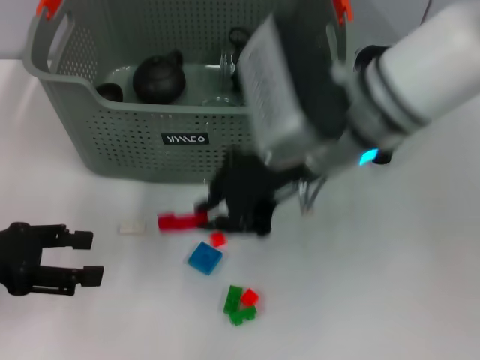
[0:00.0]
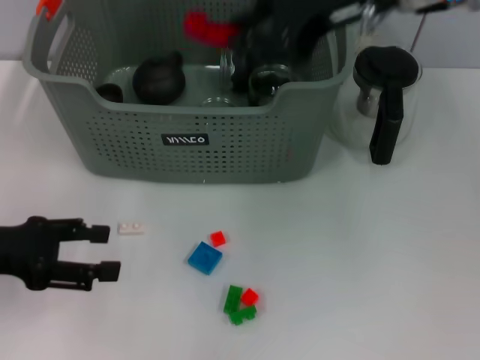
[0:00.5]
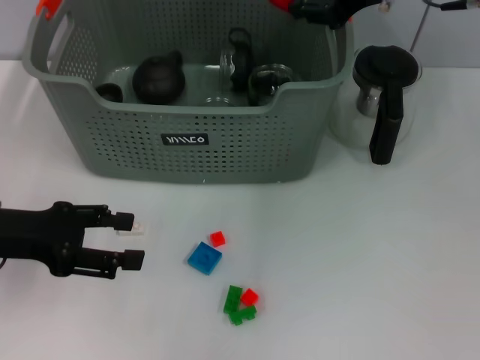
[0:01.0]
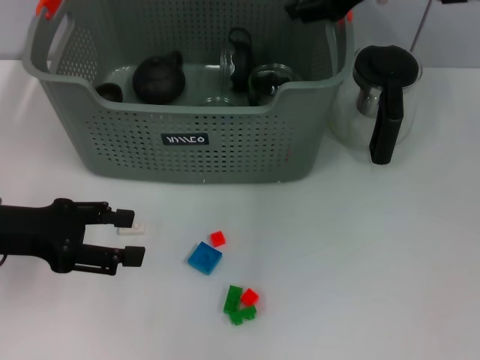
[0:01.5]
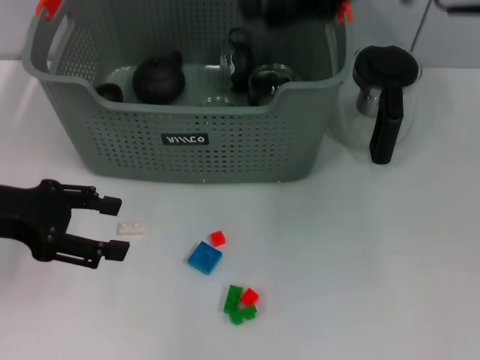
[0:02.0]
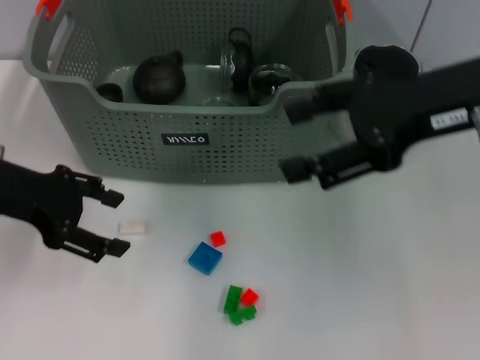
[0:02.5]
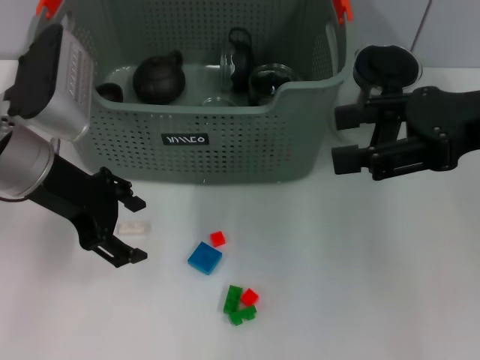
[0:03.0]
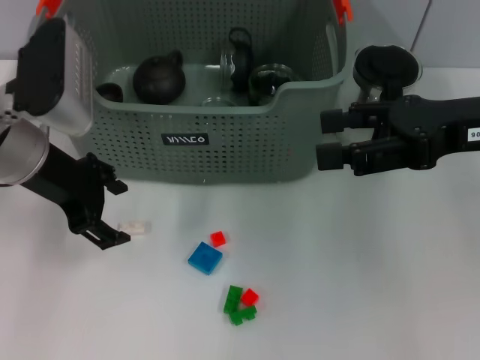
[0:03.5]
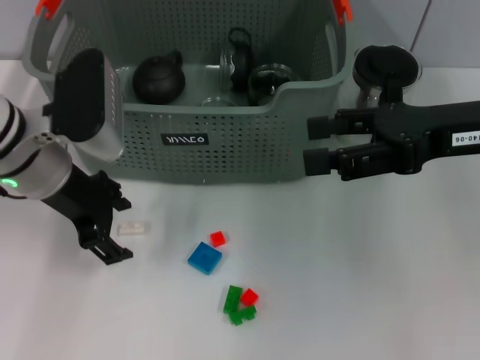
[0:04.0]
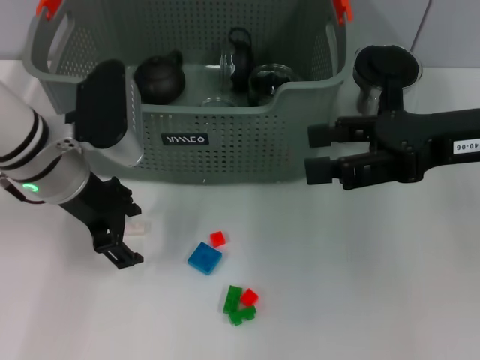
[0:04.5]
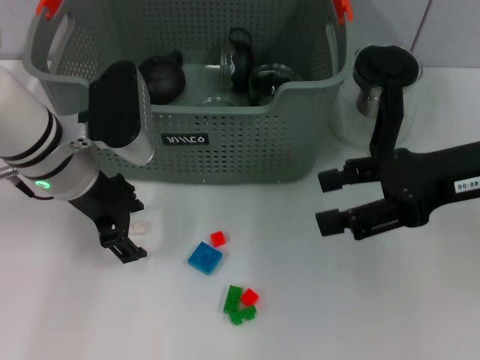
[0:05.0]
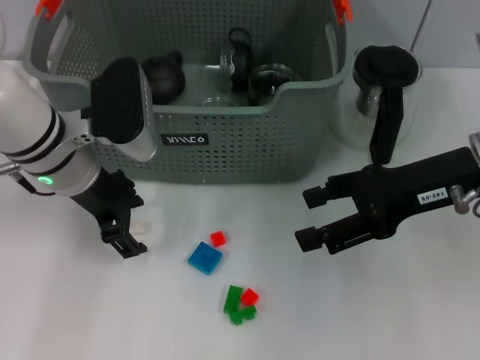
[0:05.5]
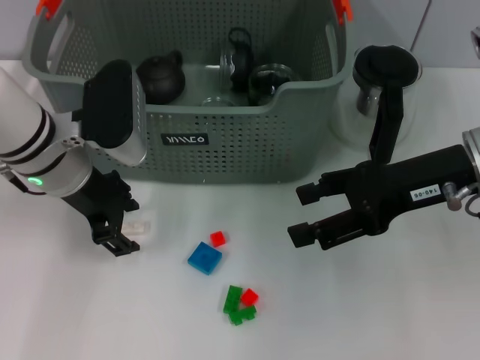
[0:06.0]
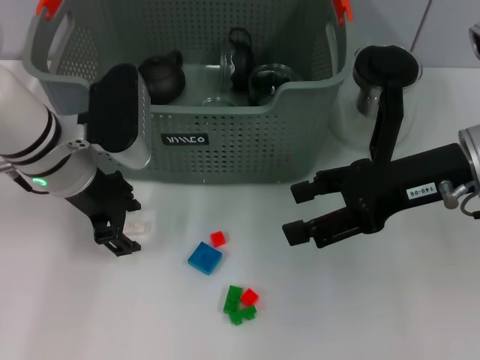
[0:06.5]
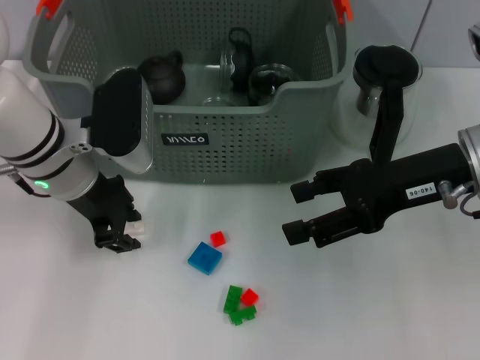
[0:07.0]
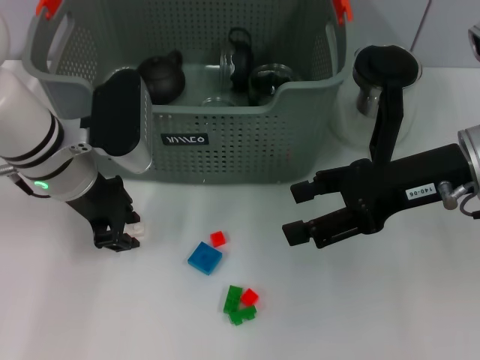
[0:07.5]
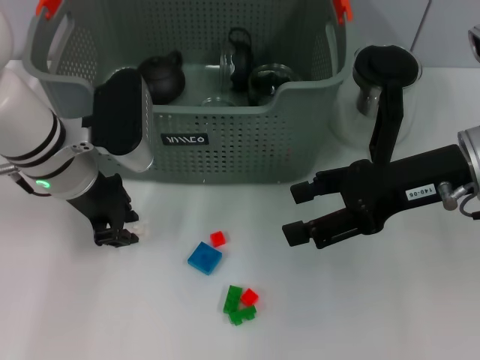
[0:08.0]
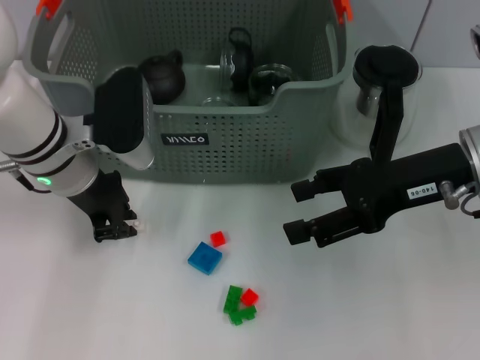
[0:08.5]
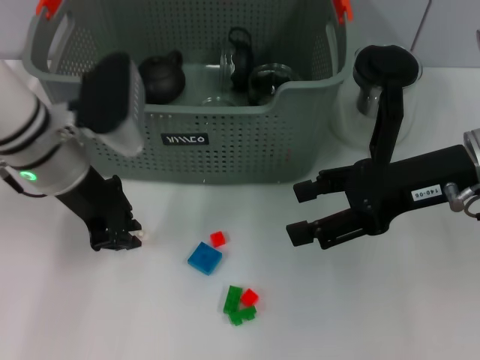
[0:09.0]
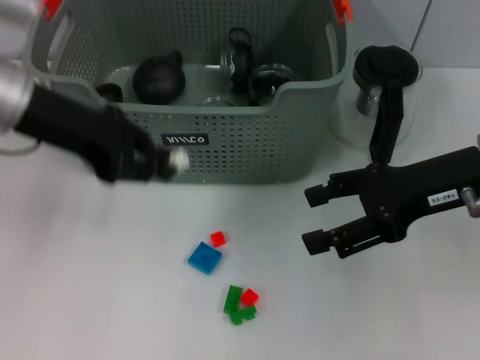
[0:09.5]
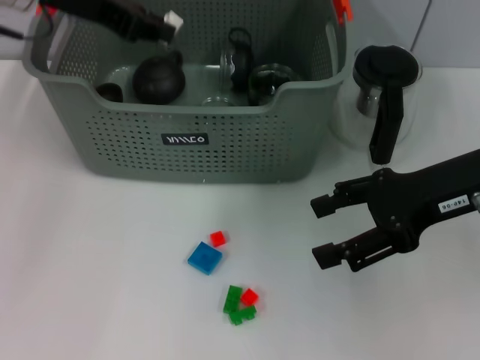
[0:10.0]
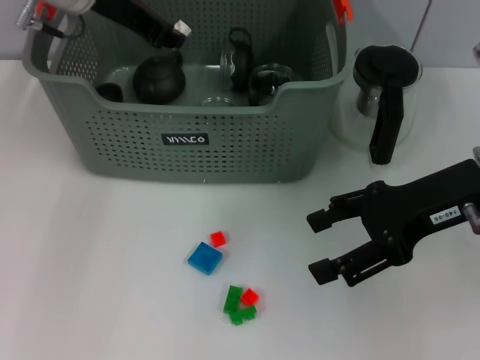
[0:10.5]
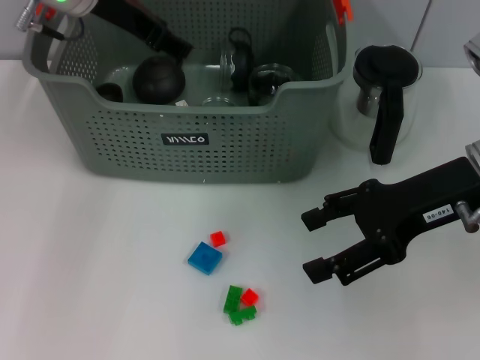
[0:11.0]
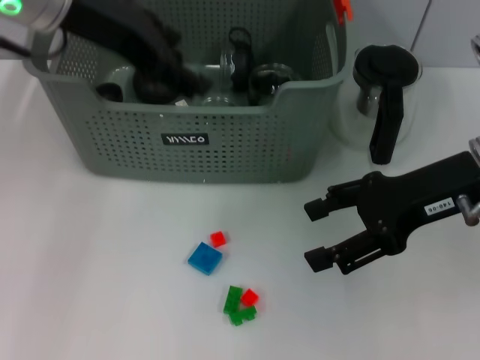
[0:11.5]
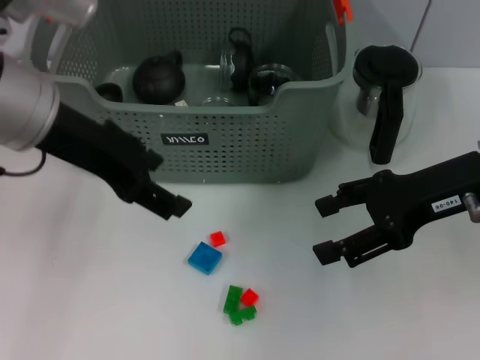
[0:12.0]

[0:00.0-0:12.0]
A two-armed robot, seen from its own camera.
Task of the whole recording: pick up the teacup on the table and place it into the storage bin, pick up the block on the table and place it into the storage bin.
Step, 0.0 to 2.0 s: Place the red block in the storage box with right gripper.
Step, 2.5 to 8.5 s: Grasp the white block with left gripper.
Step, 9.0 to 11.5 s: Place the white block in the storage box with left gripper.
0.0 to 2.0 s: The left gripper ends up about 5 cm from where it was. The right gripper moves to the right and upward, some 15 cm, and opens.
2.0 to 4.0 s: The left gripper travels to the right and forward by some 10 cm; the right gripper heads downward, to the right and backward, covering about 10 cm.
4.0 to 6.0 s: The grippers move only a little.
6.0 to 8.0 s: The left gripper closes.
8.0 to 10.0 s: The left gripper travels upward by some 15 cm.
10.0 to 12.0 s: The left gripper heads backward, covering roughly 10 cm, and opens its fingers.

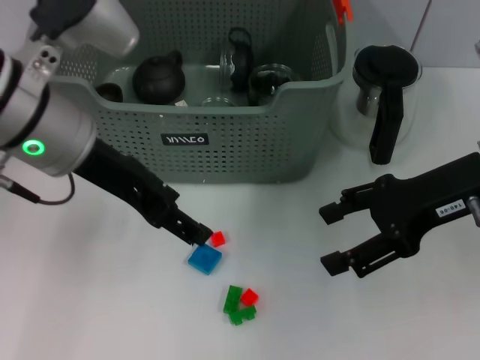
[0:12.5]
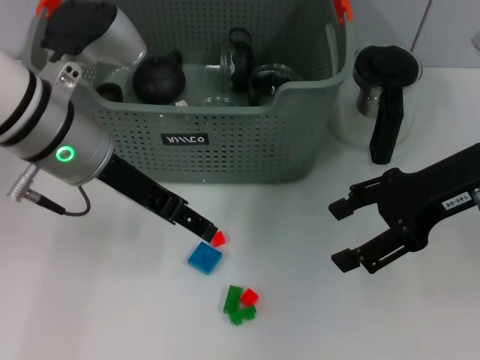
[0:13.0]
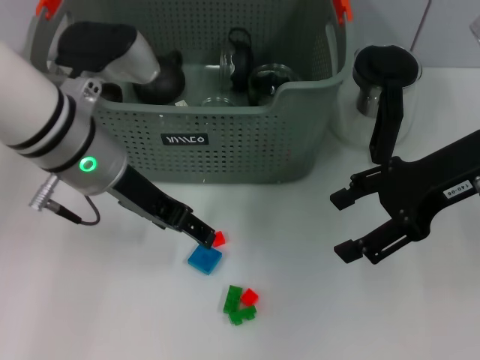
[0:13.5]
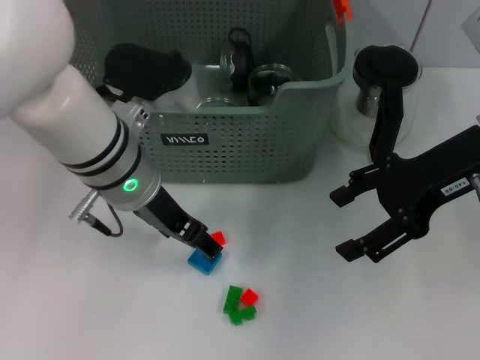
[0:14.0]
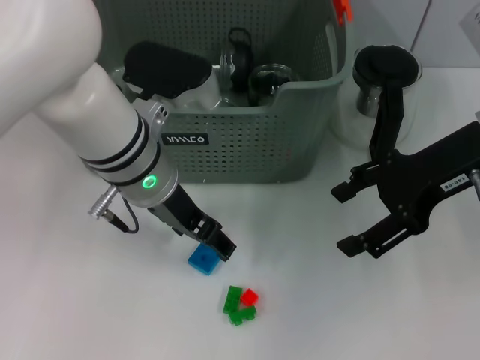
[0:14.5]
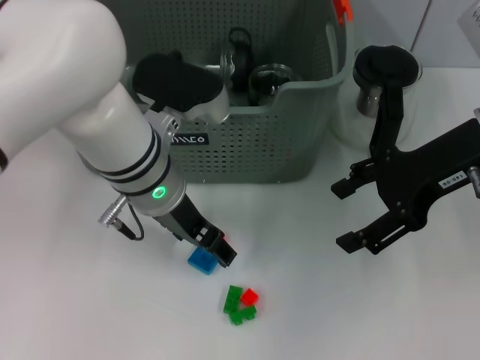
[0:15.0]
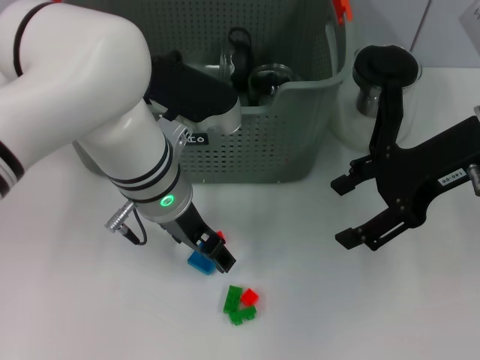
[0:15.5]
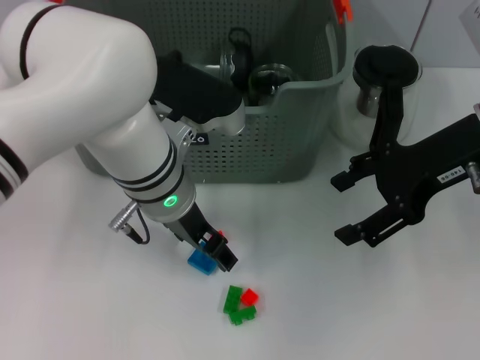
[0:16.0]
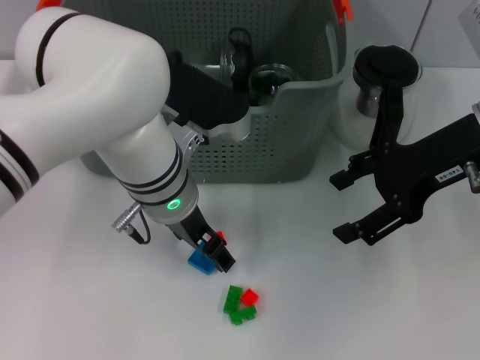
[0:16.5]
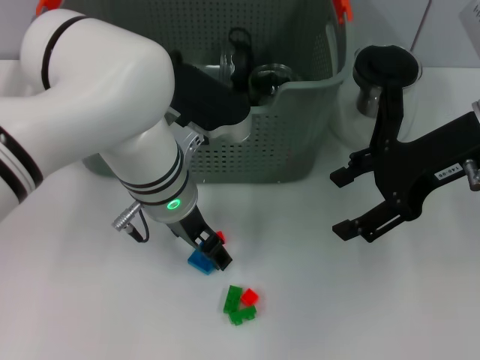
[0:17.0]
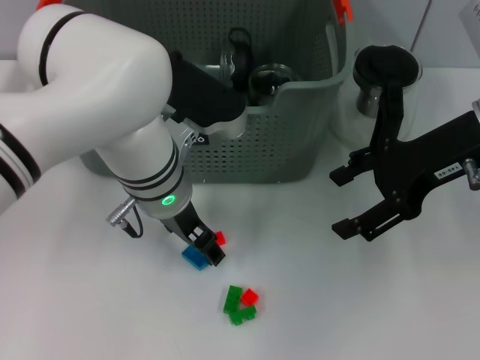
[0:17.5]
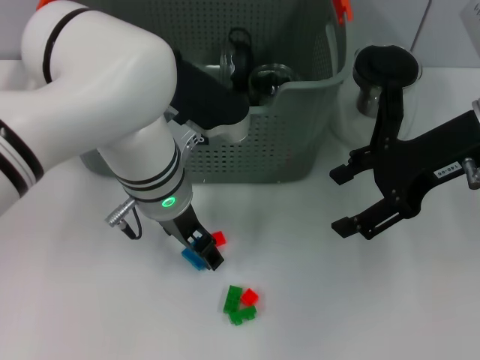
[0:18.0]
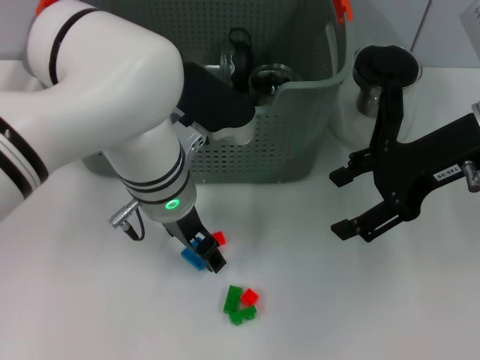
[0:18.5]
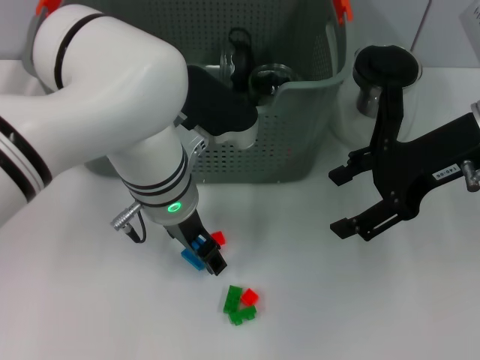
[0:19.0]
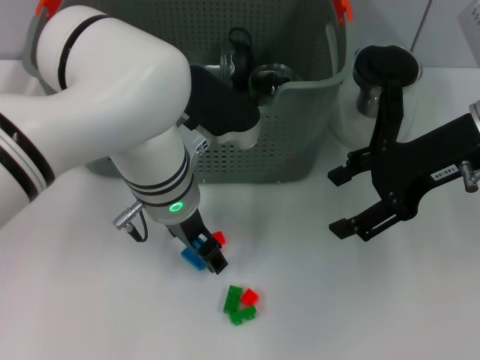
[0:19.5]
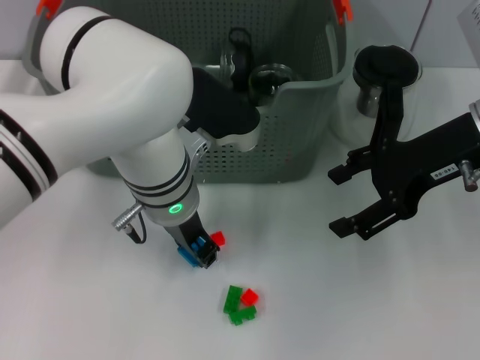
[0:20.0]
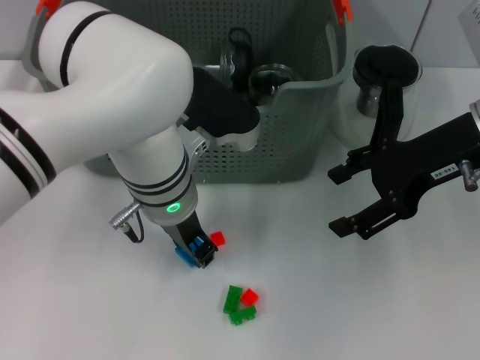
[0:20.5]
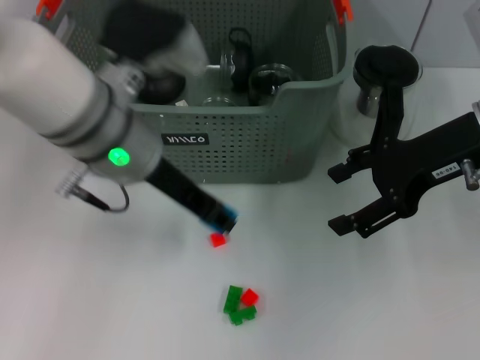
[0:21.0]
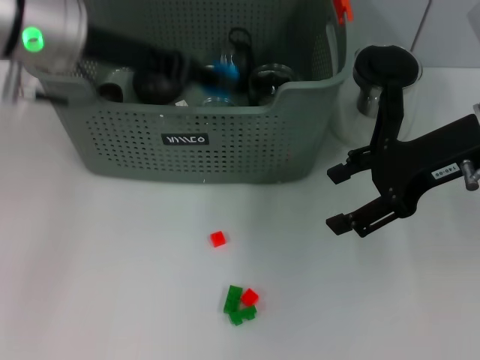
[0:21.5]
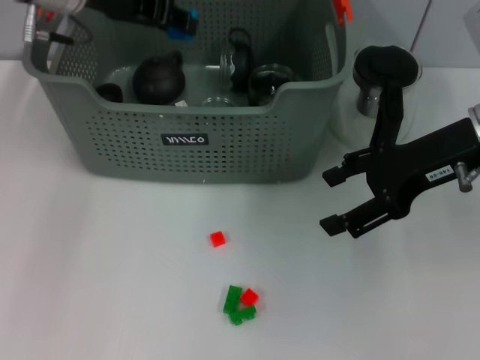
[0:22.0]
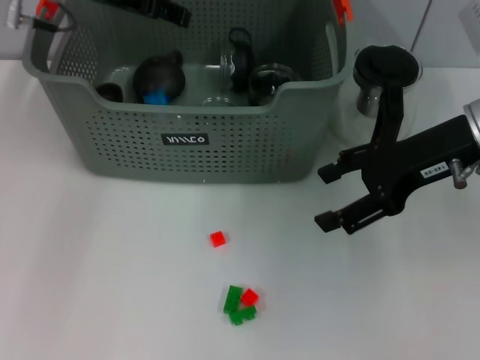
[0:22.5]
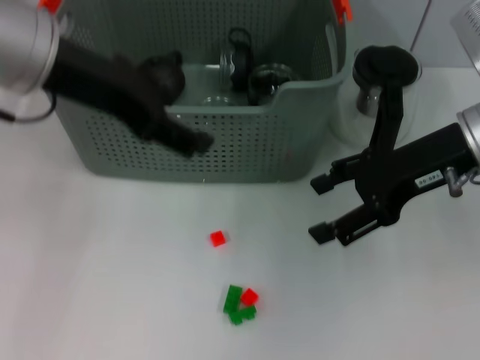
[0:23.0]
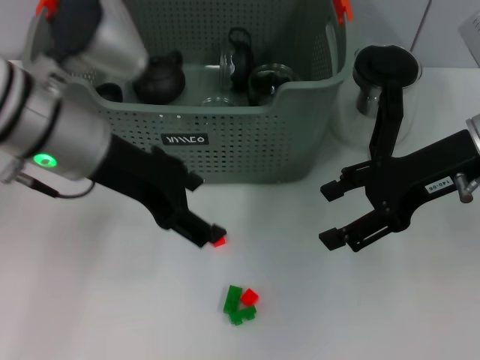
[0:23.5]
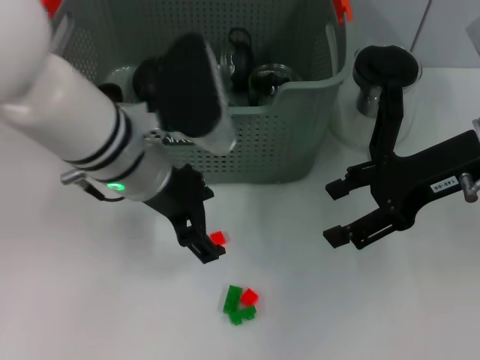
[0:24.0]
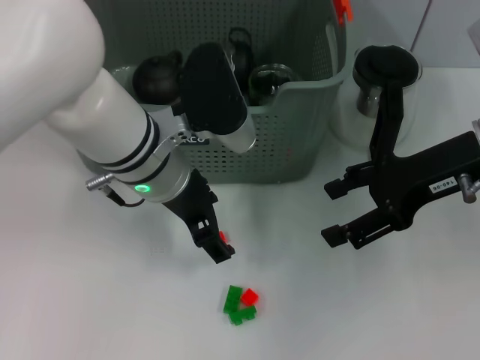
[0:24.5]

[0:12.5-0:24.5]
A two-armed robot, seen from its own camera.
Task of the whole recording: pick up the teacup on the table and place it into the storage bin, pick up the block on the table and place it into the storage bin.
Step, 12.5 to 20.0 s: Grasp the dark blue block with left gripper.
Step, 20.5 to 22.5 s: Place the dark blue block in the storage box with left gripper.
12.5 to 14.5 s: The left gripper shifts approximately 10 cm downward and to the right.
16.5 to 18.5 s: The two grippers keep their place.
18.5 to 20.5 s: The left gripper closes up.
20.5 to 22.5 s: The left gripper moves upward, to the left and forward, roughly 20 cm.
22.5 to 24.5 s: The left gripper shifts approximately 20 cm downward, to the right and backward.

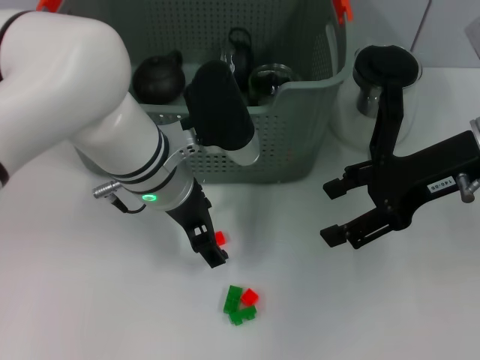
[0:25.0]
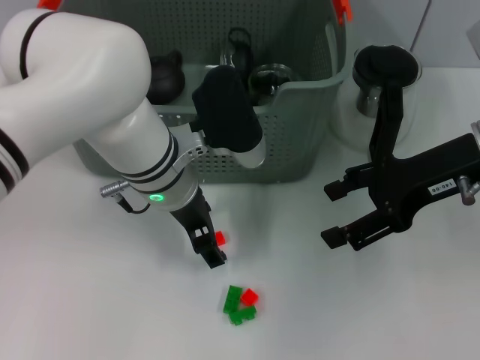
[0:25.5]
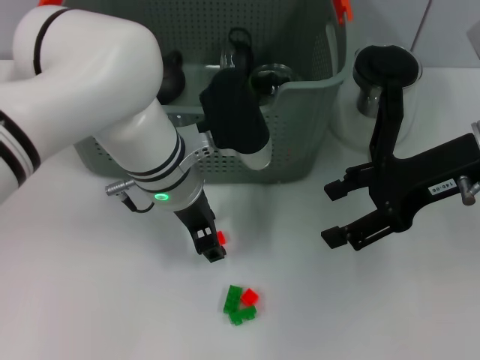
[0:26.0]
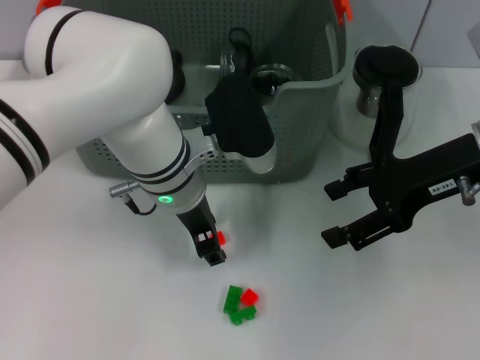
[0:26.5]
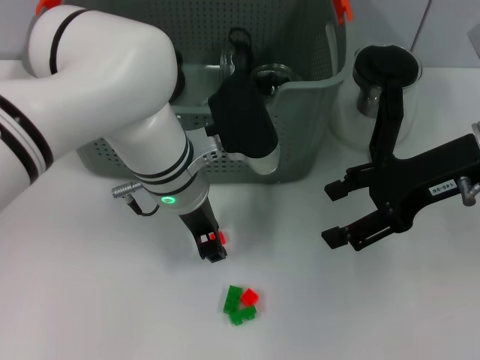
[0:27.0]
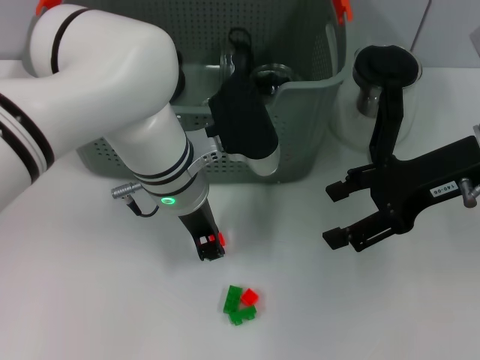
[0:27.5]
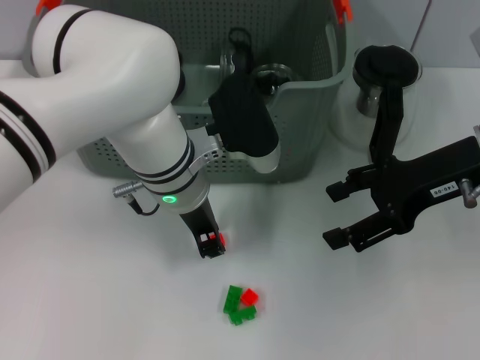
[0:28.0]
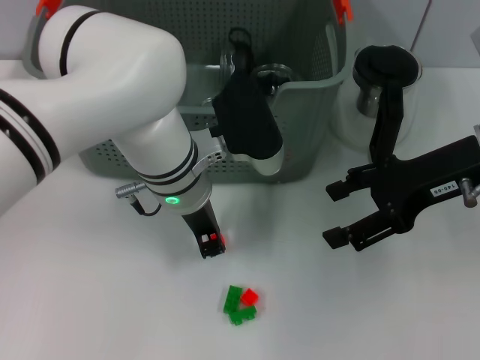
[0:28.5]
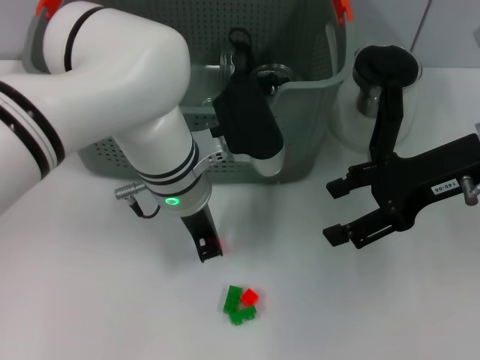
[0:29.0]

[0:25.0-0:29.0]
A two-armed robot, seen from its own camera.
Task of the whole recording: pick up the teacup on the table and place it into the storage bin, pick up the block on the table and place it into the storage bin.
Step, 25.0 to 28.5 s: Grasp the orange block with left gripper.
25.0 to 27.0 s: The left gripper closes up.
27.0 to 29.0 s: The left gripper closes.
